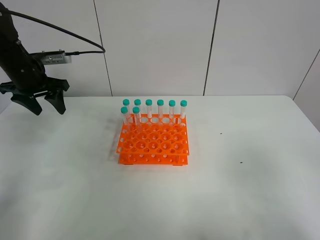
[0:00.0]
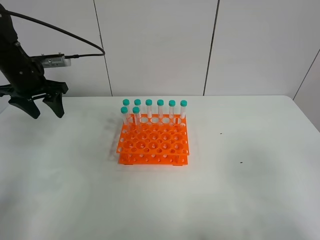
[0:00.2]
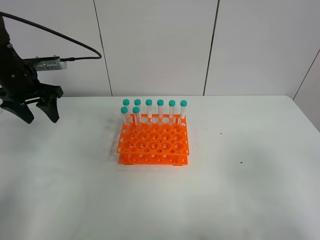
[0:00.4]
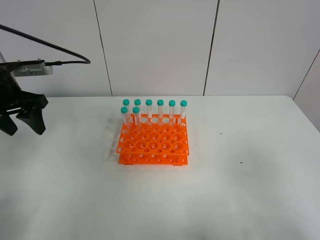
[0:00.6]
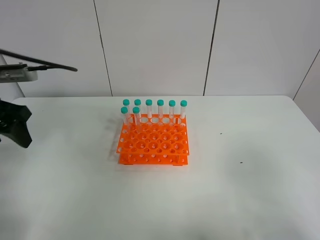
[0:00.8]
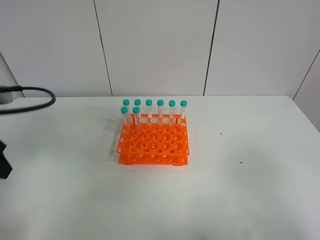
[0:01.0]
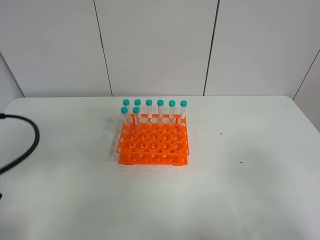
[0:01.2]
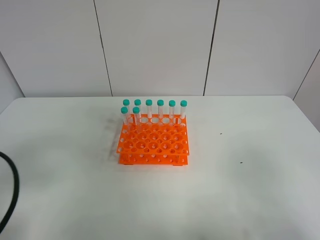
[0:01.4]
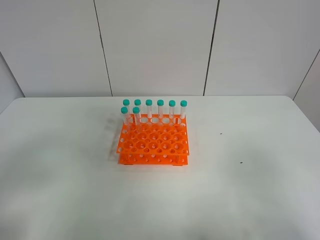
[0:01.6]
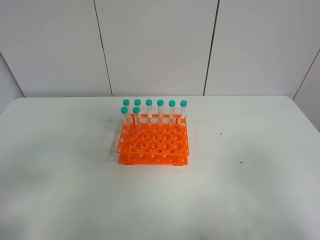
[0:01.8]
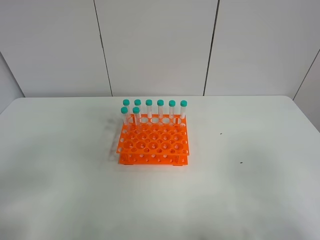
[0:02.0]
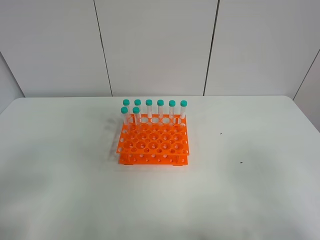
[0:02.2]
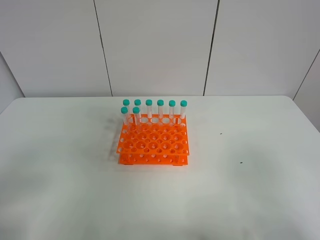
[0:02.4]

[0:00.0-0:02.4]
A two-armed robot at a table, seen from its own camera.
Task of the whole recording: Put the test tube on the table back onto the test tube rack.
0:00.0 to 0:01.2: The left gripper heads backward, covering about 30 cm.
0:01.2 to 0:02.4: The left gripper shifts some 10 cm backward.
